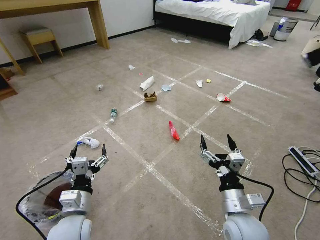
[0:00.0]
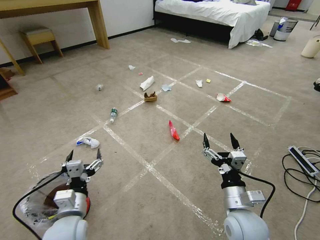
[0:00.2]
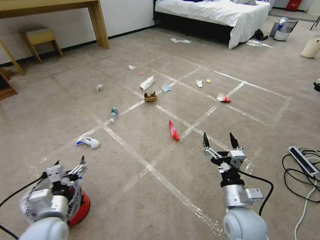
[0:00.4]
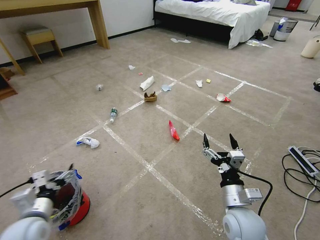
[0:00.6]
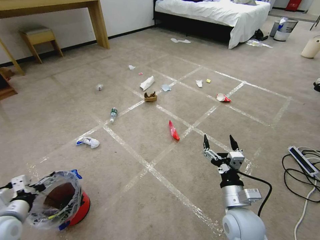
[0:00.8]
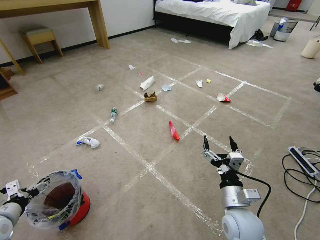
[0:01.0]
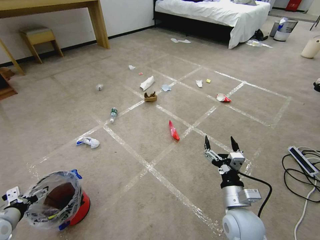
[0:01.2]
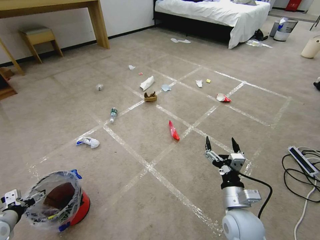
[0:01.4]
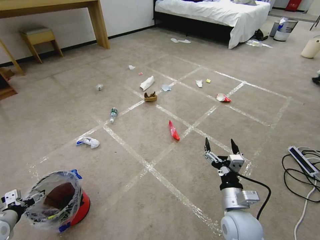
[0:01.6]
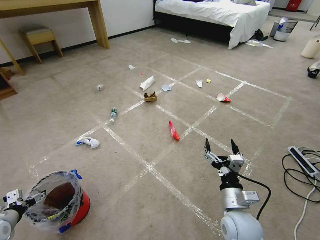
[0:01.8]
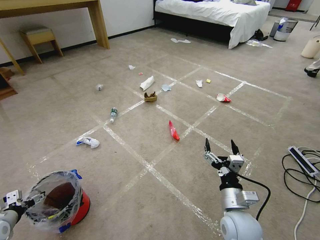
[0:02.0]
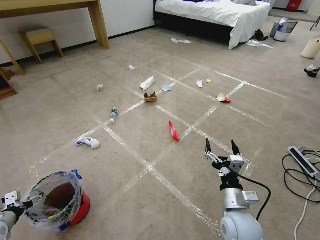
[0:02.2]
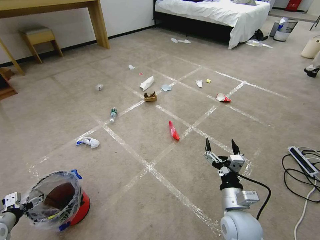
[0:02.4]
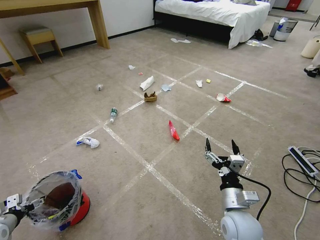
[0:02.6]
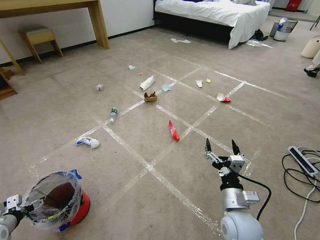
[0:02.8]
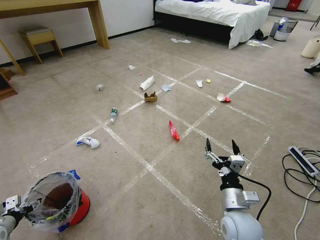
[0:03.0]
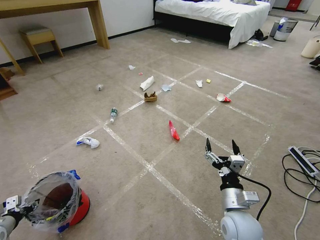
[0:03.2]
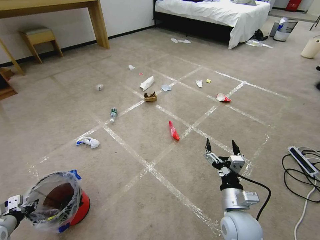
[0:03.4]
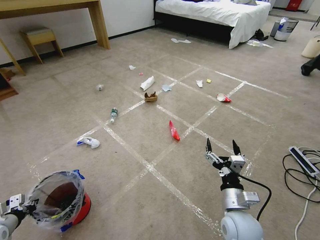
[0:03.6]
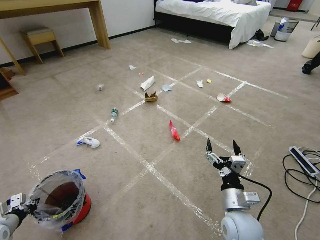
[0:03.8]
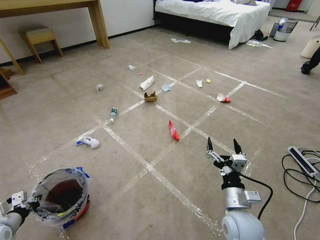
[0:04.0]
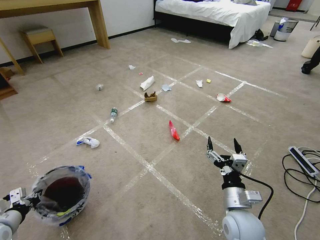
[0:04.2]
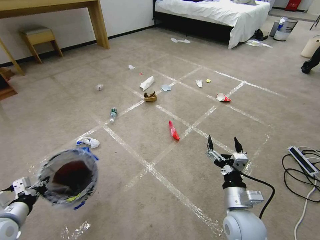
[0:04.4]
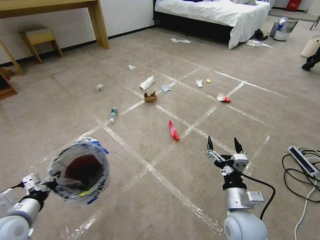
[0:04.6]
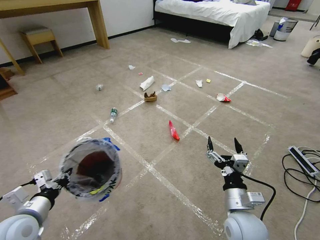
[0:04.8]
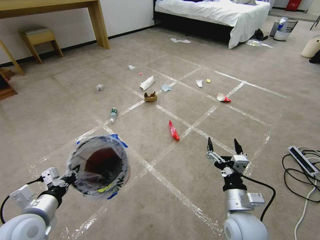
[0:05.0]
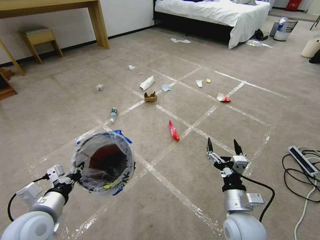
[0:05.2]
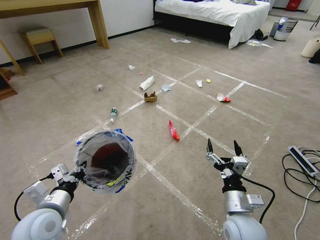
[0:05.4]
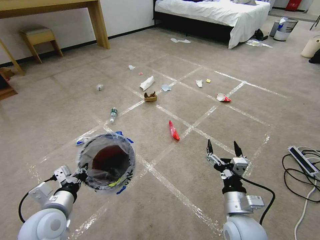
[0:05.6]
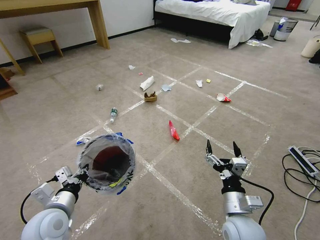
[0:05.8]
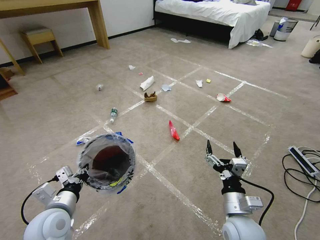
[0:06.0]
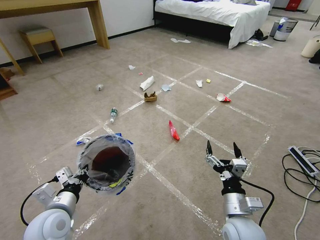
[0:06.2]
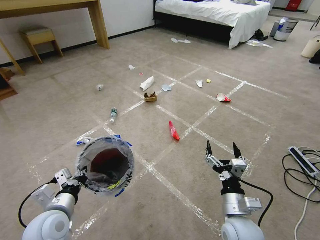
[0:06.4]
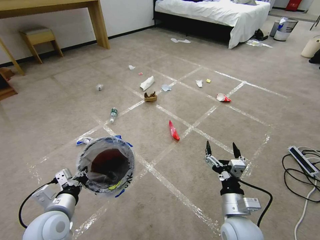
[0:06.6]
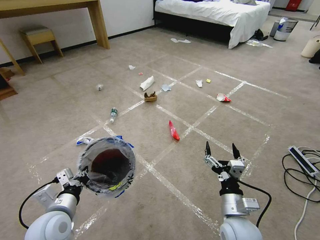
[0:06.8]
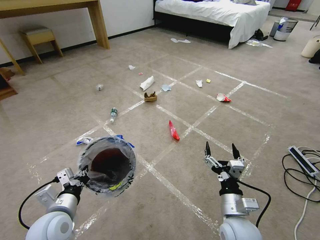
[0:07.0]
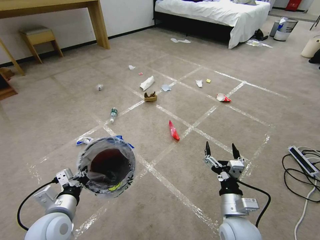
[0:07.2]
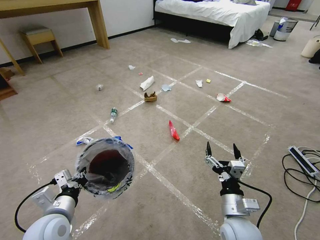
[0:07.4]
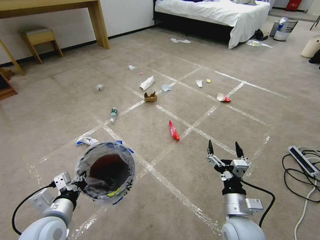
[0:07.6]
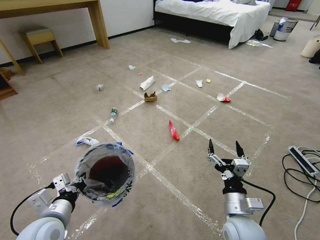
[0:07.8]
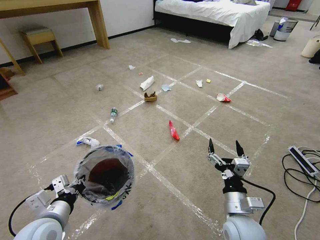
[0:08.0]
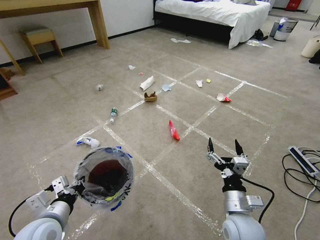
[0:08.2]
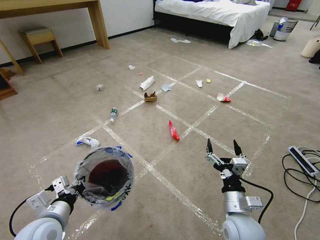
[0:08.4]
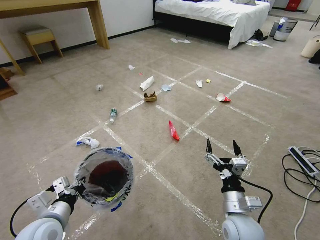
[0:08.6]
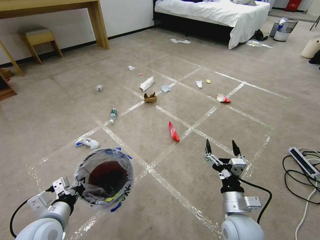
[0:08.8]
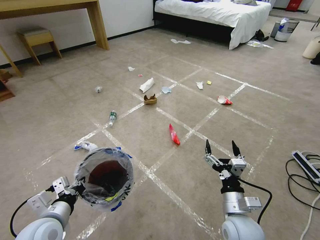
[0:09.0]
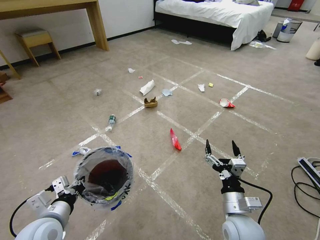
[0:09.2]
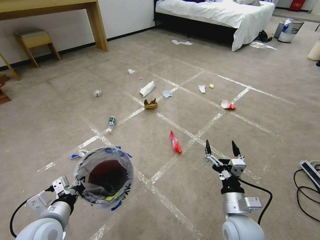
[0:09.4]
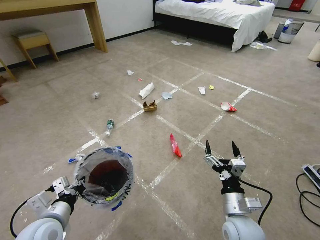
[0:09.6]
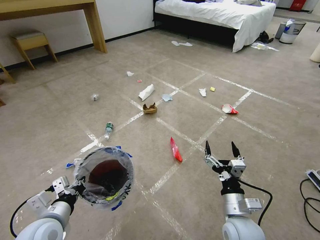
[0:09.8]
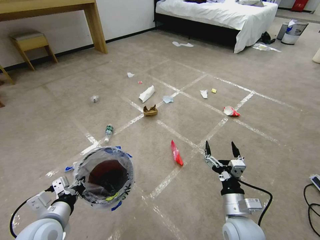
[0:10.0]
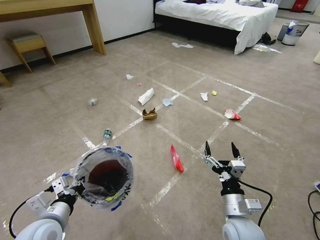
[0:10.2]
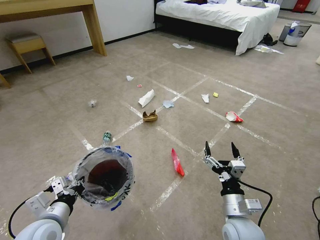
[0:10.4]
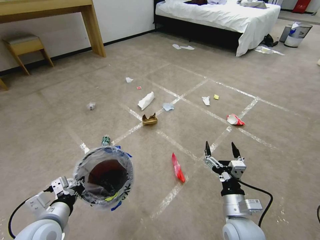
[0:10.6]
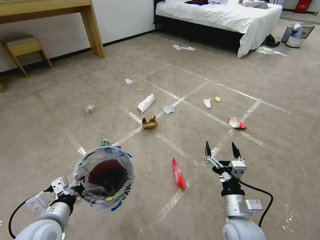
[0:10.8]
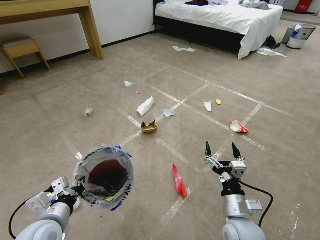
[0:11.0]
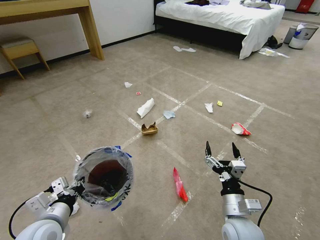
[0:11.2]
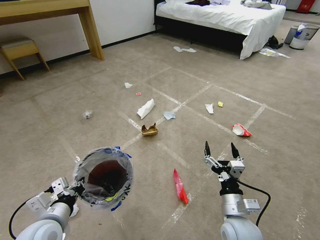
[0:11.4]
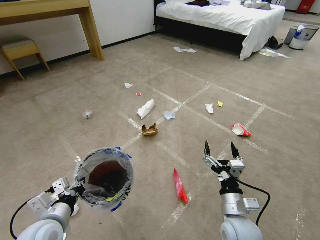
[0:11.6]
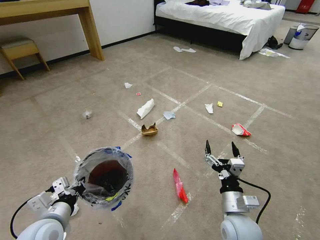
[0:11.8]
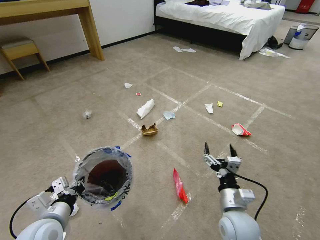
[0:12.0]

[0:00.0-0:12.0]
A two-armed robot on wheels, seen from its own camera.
Task of the whole recording: Pick up the trash bin and place the garbage on the floor into it.
0:01.6 to 0:03.0: The grippers stay close to where they were, moving slightly.
0:03.0 to 0:04.4: The left gripper heads to the right and upward, covering roughly 15 cm, and closes.
0:04.4 to 0:06.0: The left gripper moves to the right, about 15 cm.
0:06.0 to 0:09.0: There are only small adjustments of the grippers.
0:10.4 to 0:12.0: The grippers make only small movements.

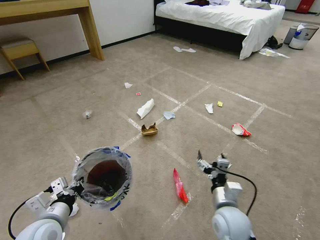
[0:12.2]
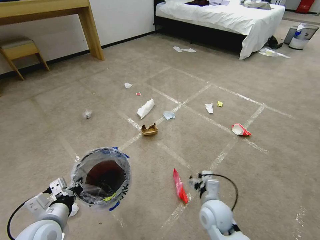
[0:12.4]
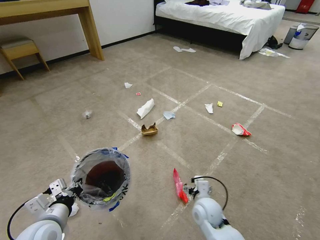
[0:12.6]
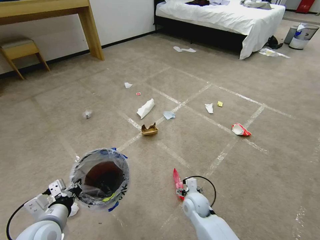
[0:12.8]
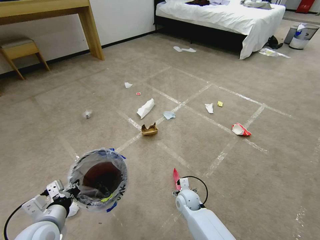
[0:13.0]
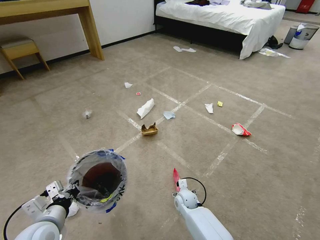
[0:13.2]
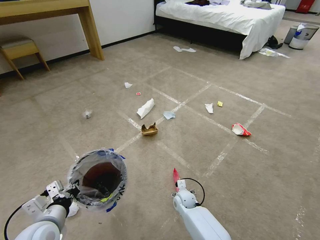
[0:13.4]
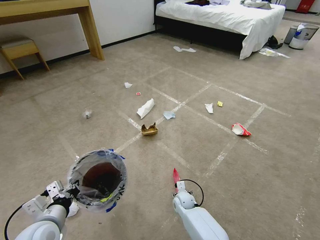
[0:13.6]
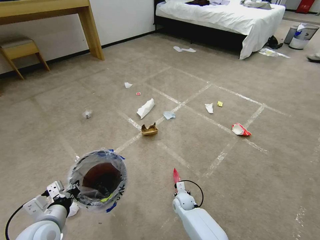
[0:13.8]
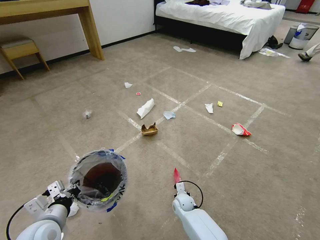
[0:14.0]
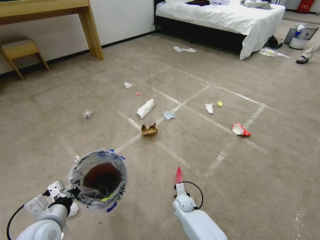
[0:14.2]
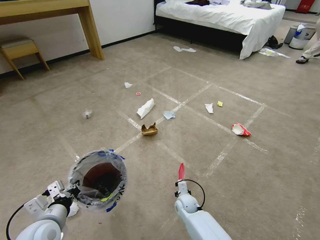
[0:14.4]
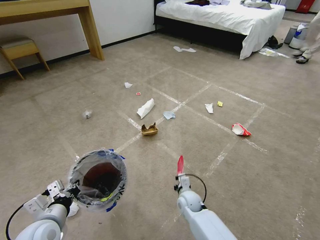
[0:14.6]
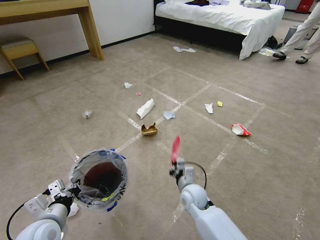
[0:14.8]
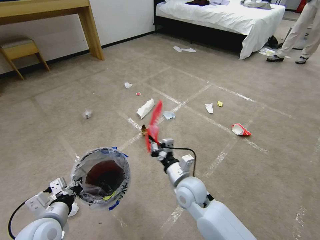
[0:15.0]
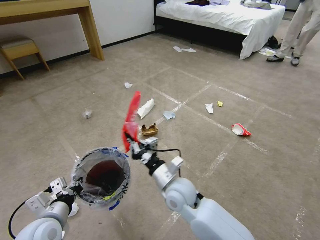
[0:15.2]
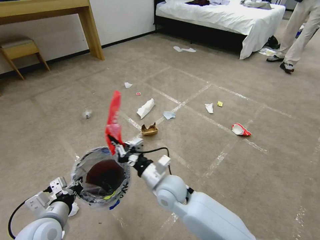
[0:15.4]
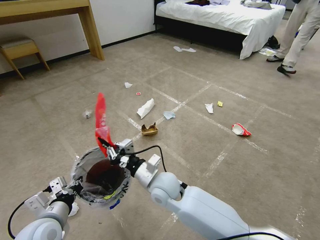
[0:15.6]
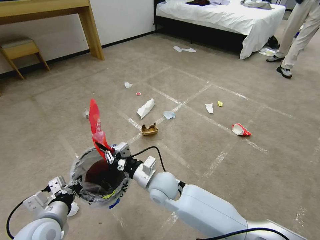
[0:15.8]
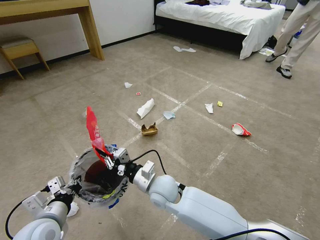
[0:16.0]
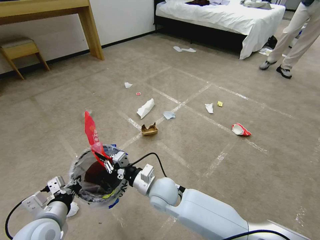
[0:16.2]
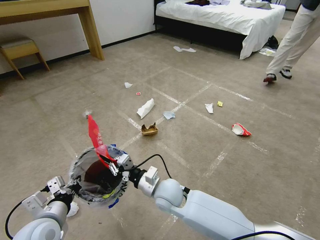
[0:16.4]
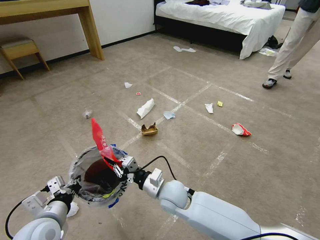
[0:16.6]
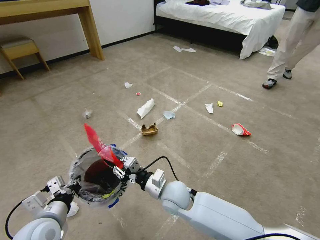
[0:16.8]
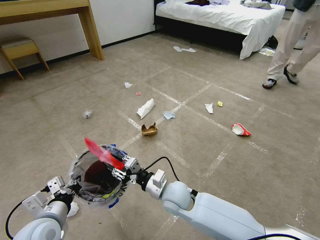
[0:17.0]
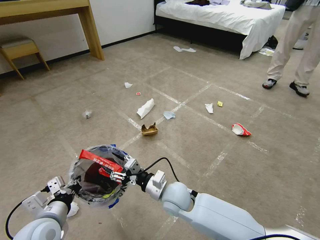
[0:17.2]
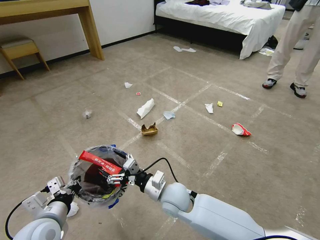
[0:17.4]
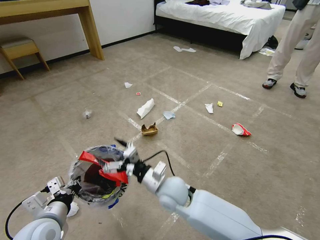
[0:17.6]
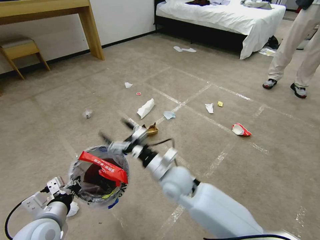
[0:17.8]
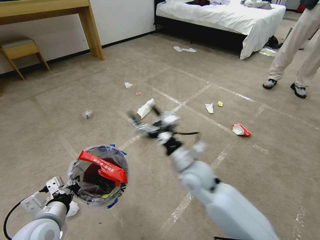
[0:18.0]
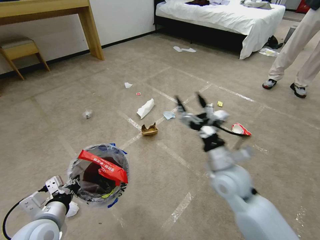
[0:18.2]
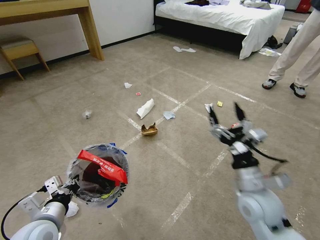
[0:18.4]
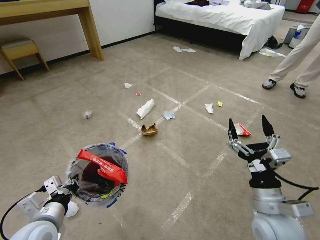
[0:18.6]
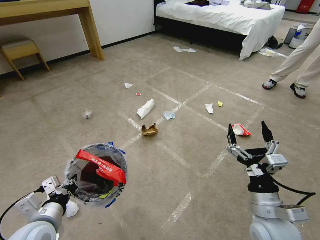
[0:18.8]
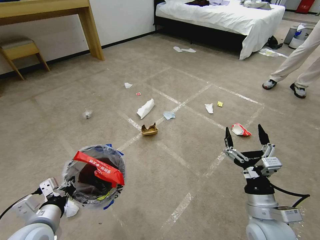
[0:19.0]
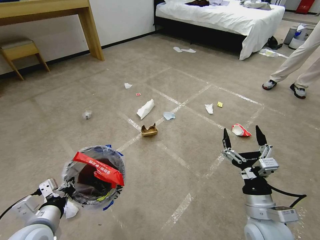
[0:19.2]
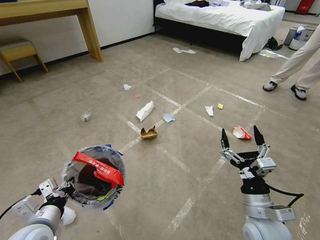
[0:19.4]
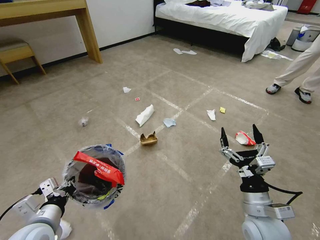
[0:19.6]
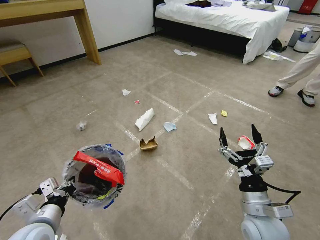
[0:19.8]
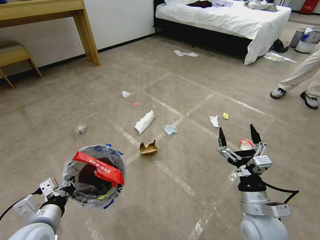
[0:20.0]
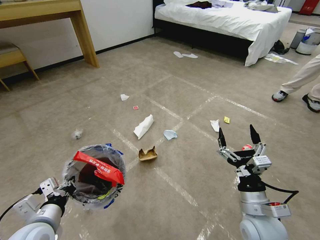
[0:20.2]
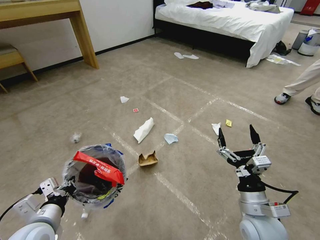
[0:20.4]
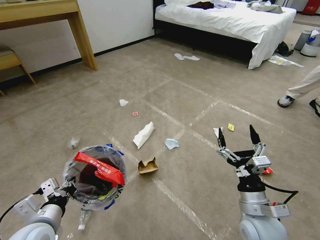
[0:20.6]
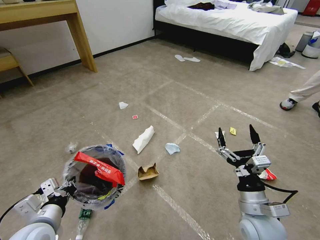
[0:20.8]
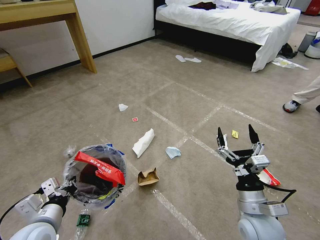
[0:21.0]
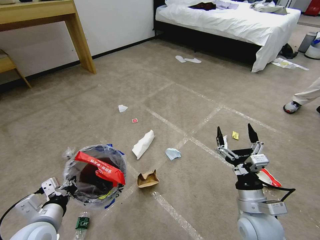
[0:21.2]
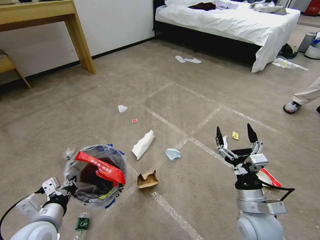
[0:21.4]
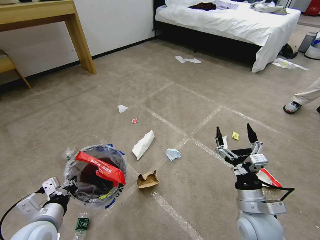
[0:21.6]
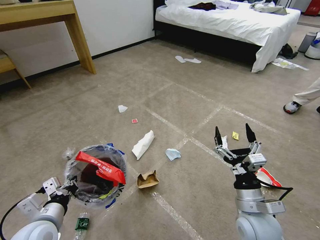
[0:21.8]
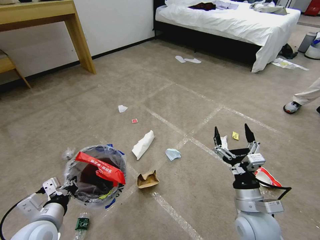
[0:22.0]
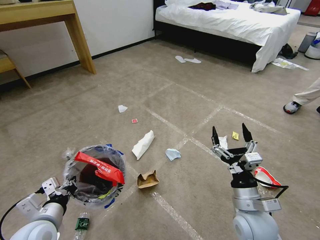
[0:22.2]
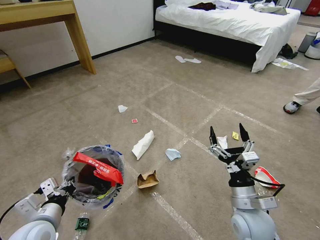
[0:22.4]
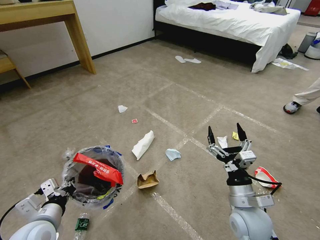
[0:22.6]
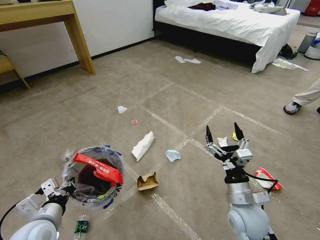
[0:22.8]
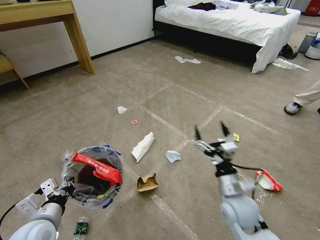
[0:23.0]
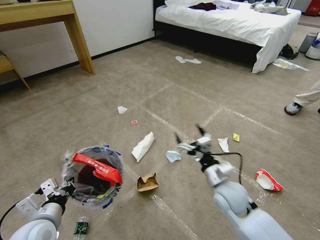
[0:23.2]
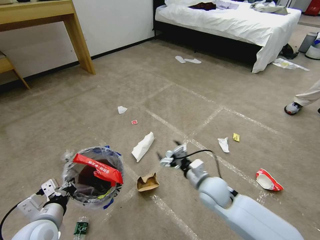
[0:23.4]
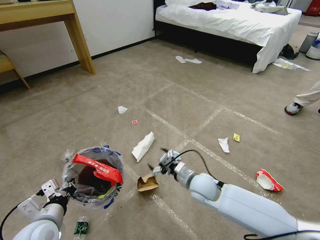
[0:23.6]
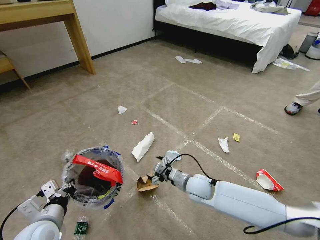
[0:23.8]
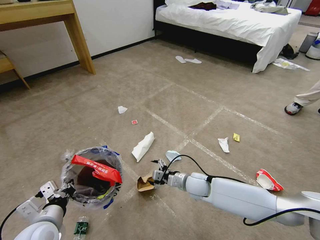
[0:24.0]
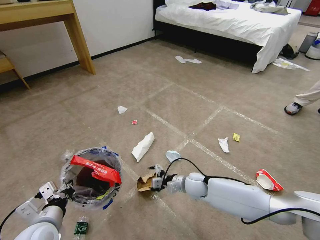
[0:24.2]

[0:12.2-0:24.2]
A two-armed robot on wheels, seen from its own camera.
Task of the whole recording: Pick up the trash bin and place the garbage on the floor into it.
0:12.2 to 0:13.8: The right gripper moves downward and forward, about 25 cm.
0:13.8 to 0:15.2: The right gripper goes roughly 25 cm upward, and closes its fingers.
0:16.6 to 0:18.2: The right gripper goes some 20 cm to the right and upward, and opens.
0:18.2 to 0:19.8: The right gripper heads backward, to the right and downward, covering roughly 15 cm.
0:21.2 to 0:22.6: The grippers move only a little.
0:22.6 to 0:24.2: The right gripper goes approximately 20 cm forward, downward and to the left.
